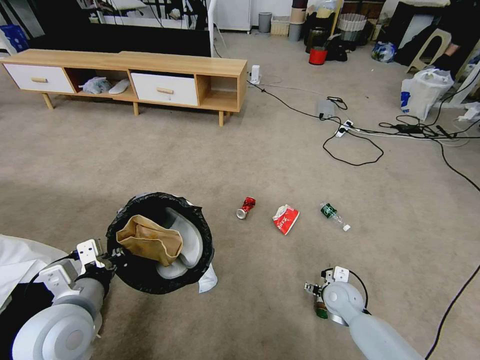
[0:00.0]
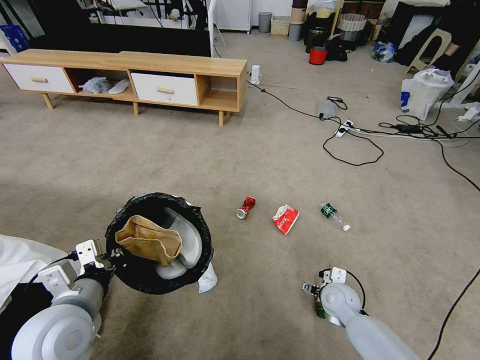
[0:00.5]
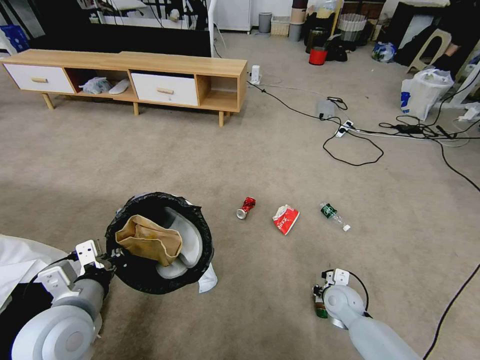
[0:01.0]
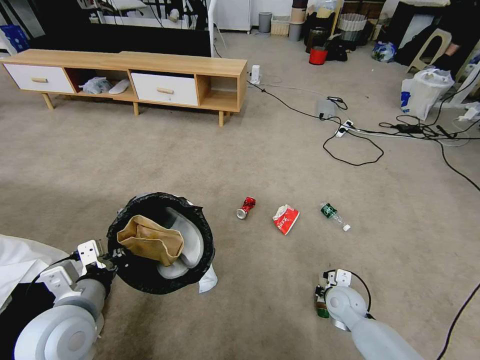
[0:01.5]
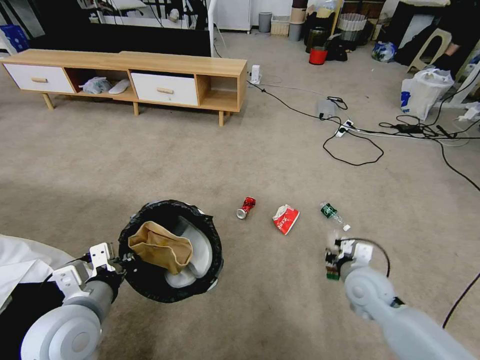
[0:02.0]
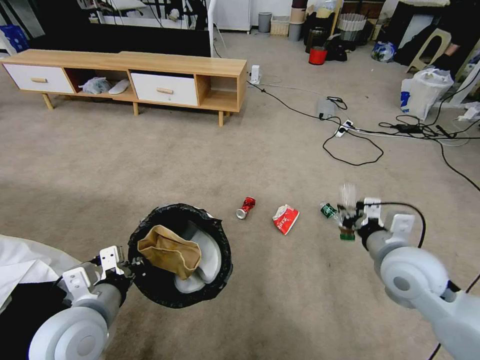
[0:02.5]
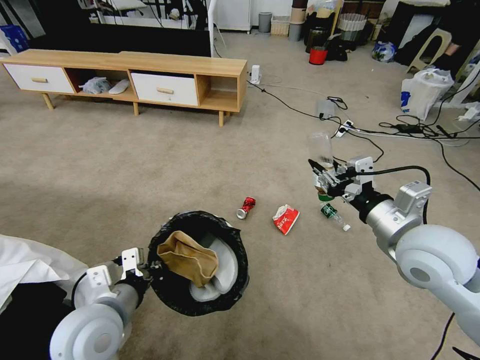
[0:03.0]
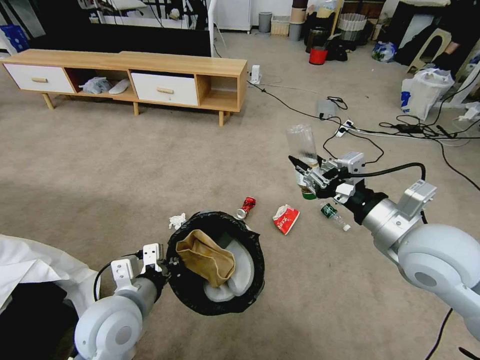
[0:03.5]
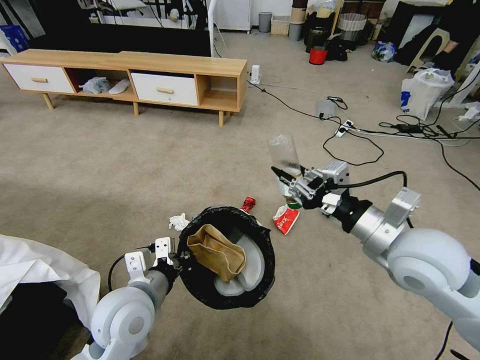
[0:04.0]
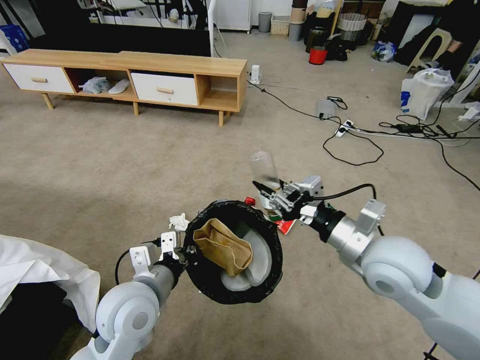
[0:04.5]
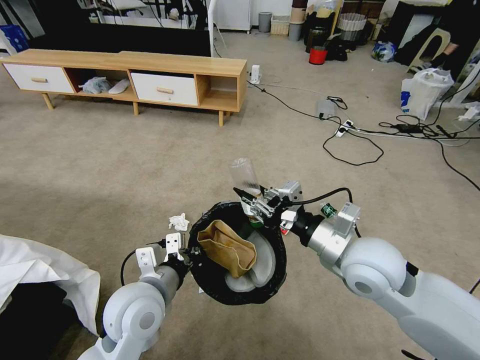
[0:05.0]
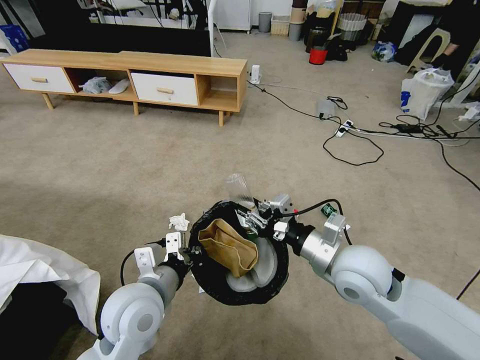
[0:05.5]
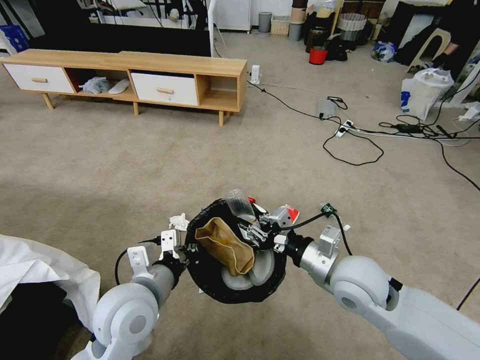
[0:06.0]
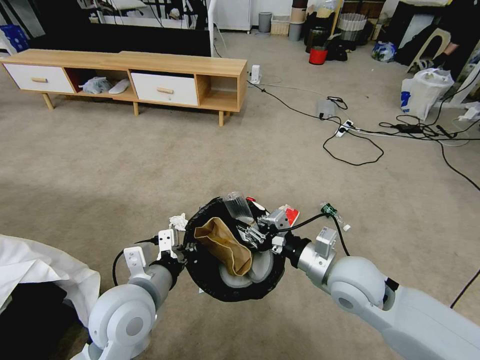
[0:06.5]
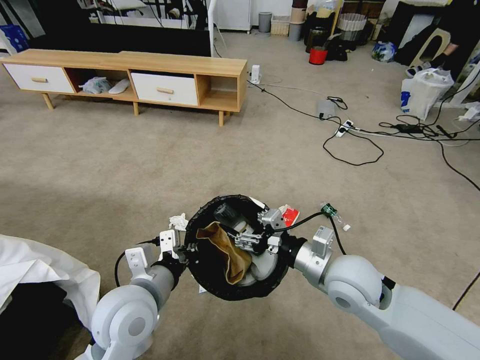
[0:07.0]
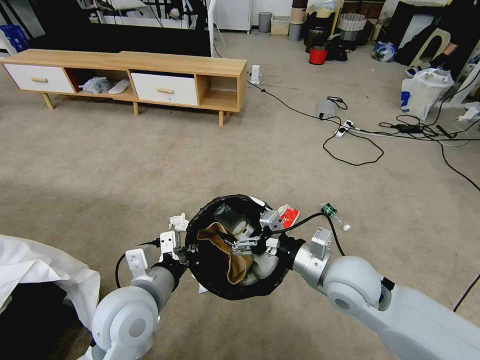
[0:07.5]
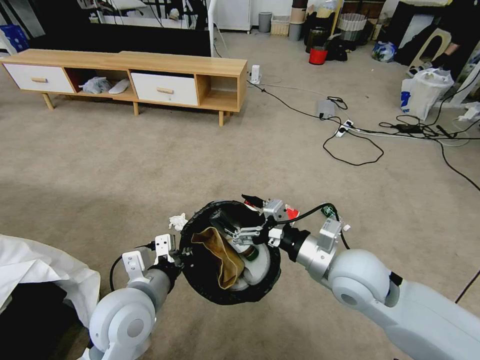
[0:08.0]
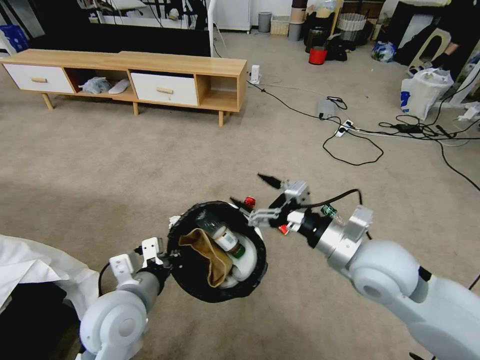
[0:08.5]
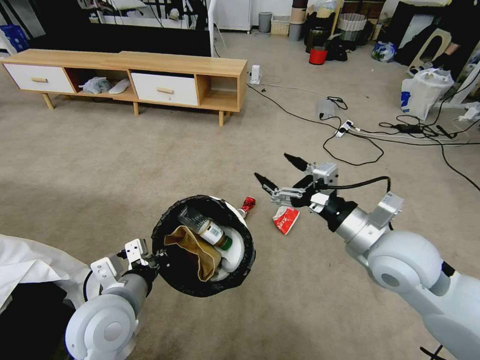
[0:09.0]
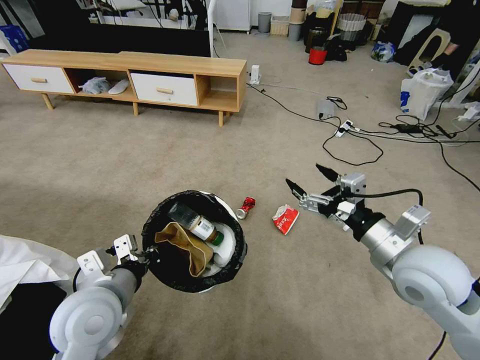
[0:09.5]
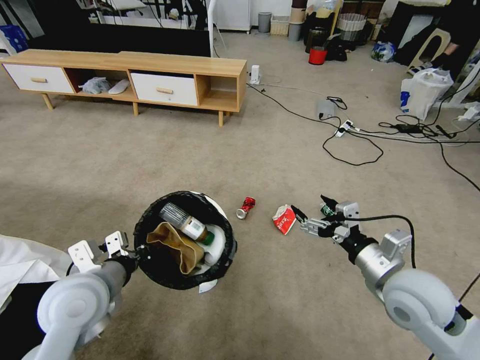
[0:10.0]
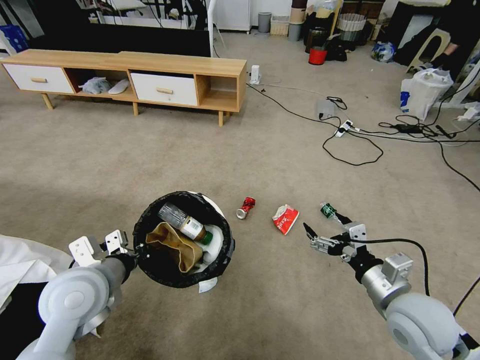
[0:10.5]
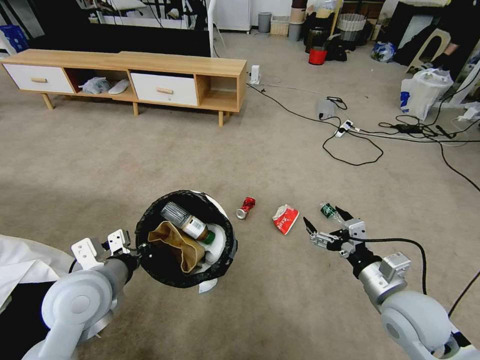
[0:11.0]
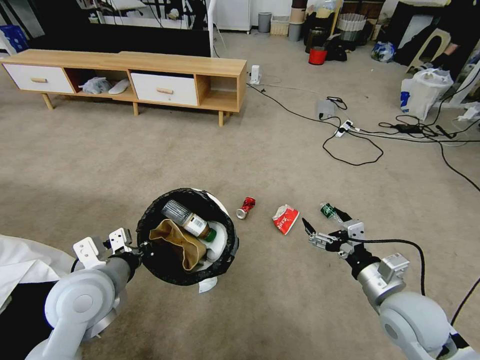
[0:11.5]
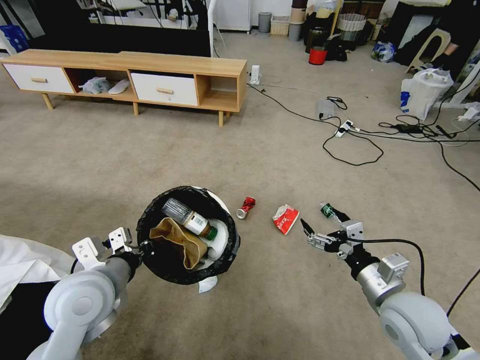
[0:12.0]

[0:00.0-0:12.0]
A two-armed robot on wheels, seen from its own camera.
Task of the whole recording: Pick up the trash bin and place the garbage on the floor into it.
0:00.0 to 0:02.0: The right gripper shifts some 10 cm upward, and closes its fingers.
0:02.0 to 0:04.0: The left gripper heads to the right, covering roughly 10 cm. The right gripper moves upward, some 20 cm.
0:04.0 to 0:06.0: The right gripper heads downward and to the left, covering approximately 10 cm.
0:06.0 to 0:08.0: The right gripper opens its fingers.
0:08.0 to 0:10.0: The left gripper heads to the left, covering approximately 5 cm; the right gripper goes about 10 cm to the right.
0:10.0 to 0:12.0: The right gripper changes place by some 5 cm.

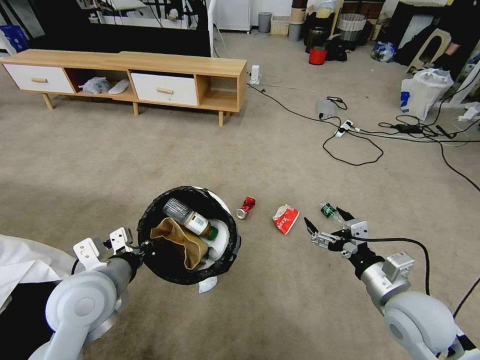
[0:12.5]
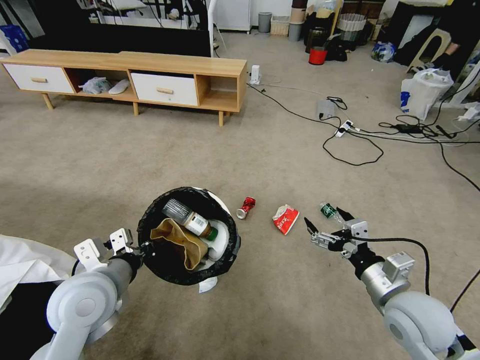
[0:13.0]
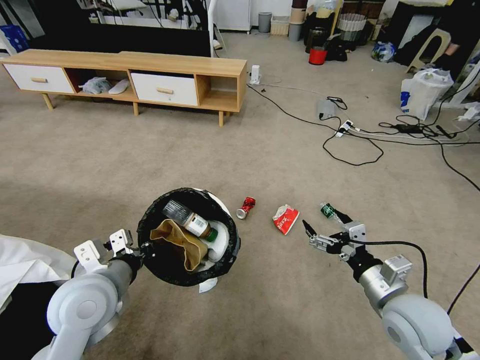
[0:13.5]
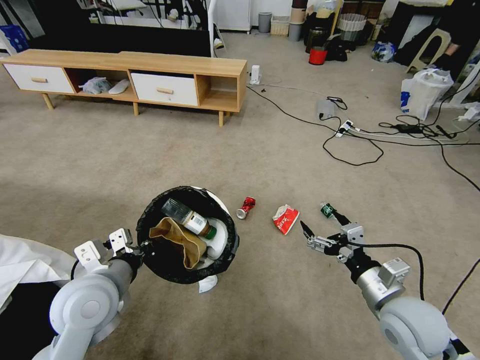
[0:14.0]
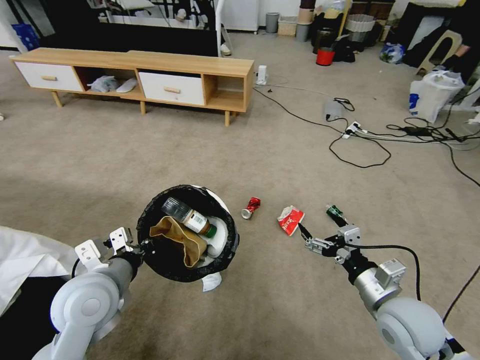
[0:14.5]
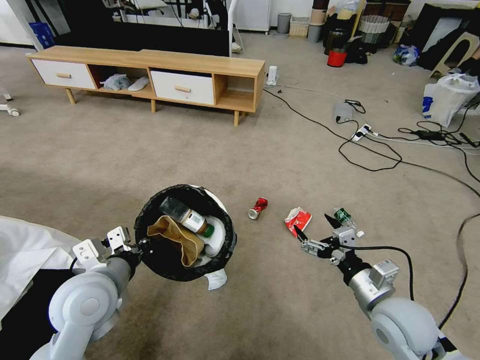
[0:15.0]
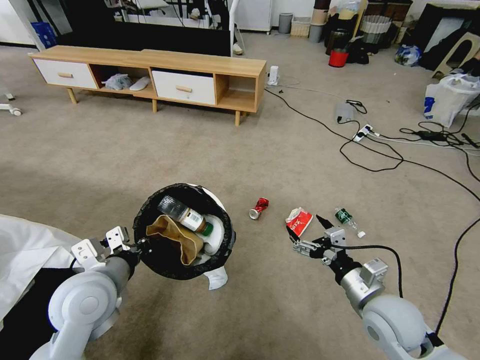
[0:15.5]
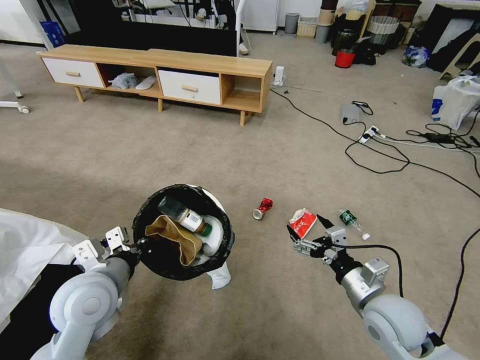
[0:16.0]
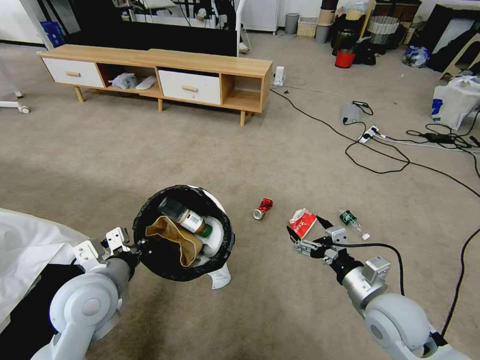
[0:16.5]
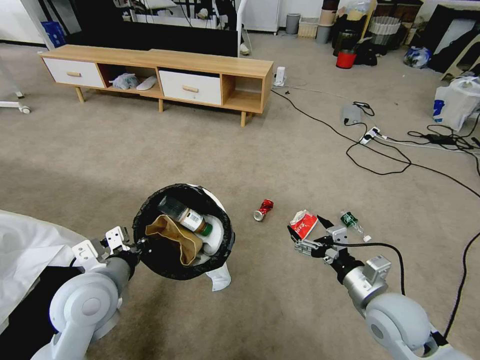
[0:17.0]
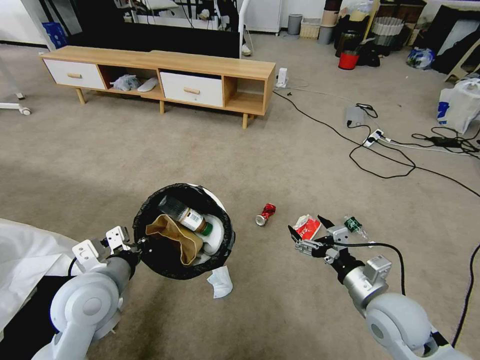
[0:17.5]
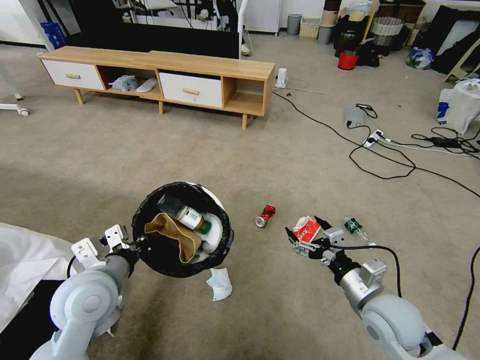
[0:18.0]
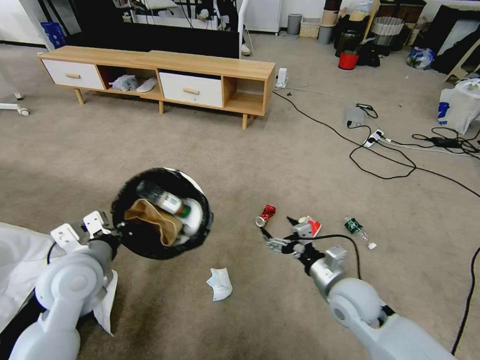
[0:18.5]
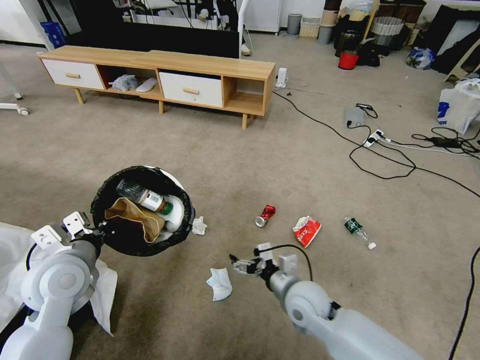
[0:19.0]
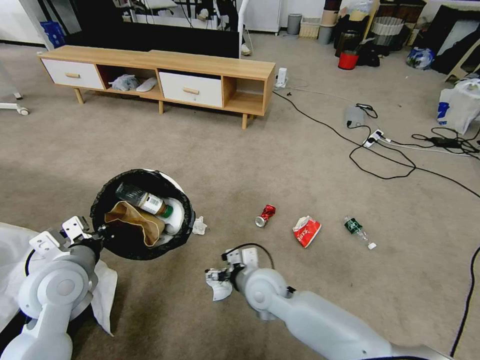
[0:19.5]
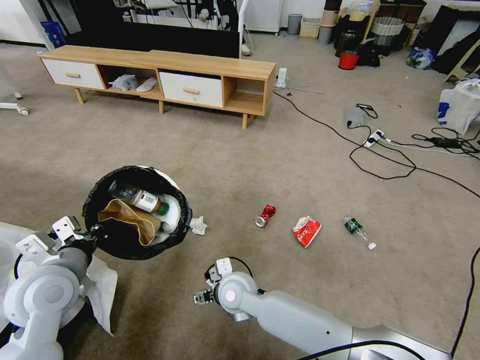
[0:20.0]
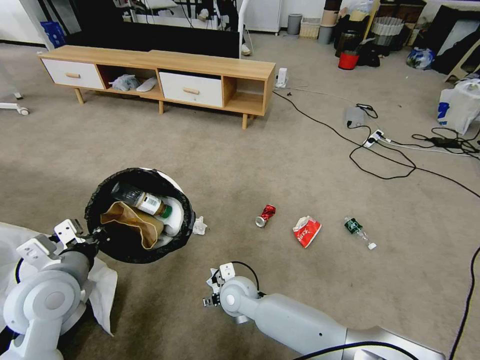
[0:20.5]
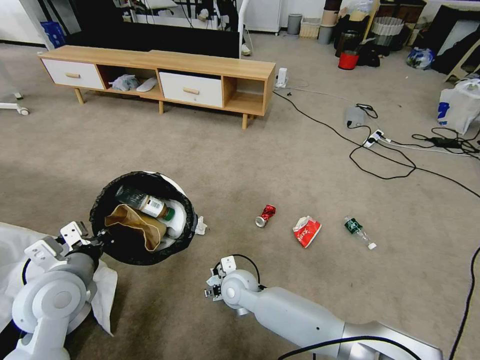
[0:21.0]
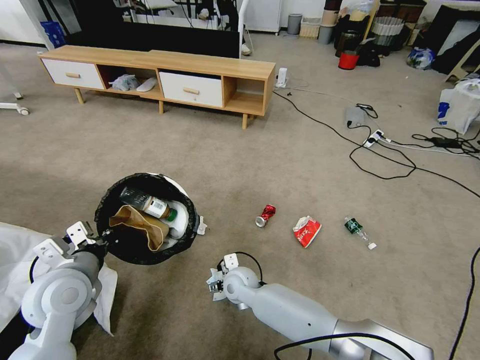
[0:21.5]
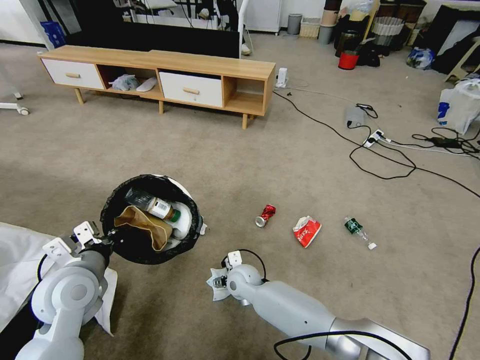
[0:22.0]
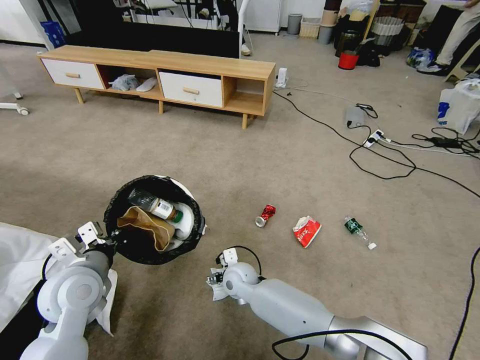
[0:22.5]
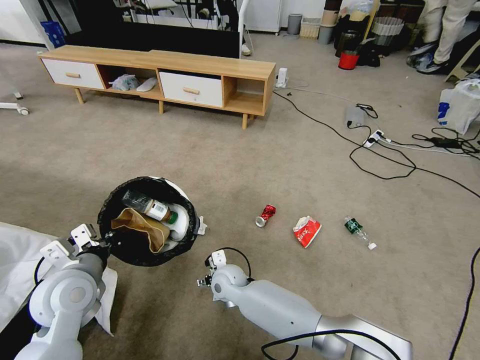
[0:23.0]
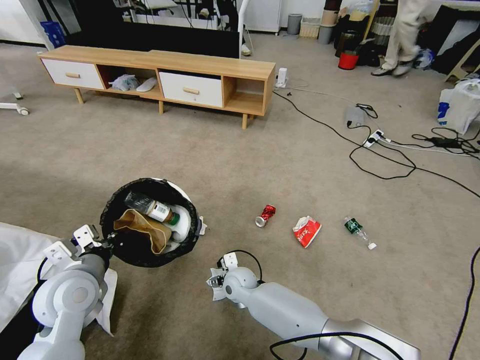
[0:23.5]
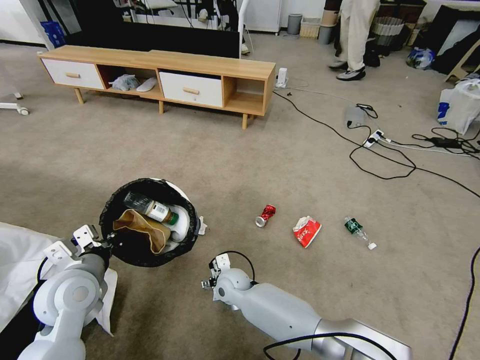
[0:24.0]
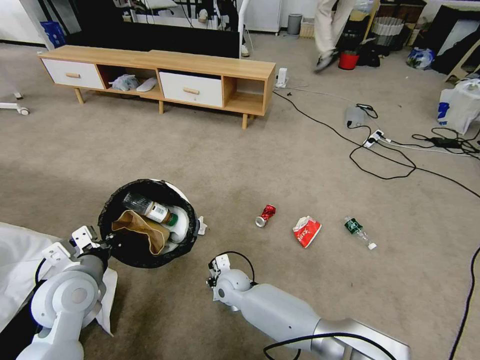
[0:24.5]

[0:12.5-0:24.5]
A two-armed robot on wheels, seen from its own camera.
Task of the whole recording: Pick up the trash bin and place the garbage on the floor into it.
0:16.5 to 0:18.5: The right gripper ends up about 10 cm from where it was, while the left gripper ends up about 5 cm from where it was.
0:18.5 to 0:20.5: The right gripper shifts approximately 25 cm to the left.
0:20.5 to 0:22.5: The right gripper moves forward, roughly 5 cm.
0:22.5 to 0:24.5: The right gripper closes its fingers.

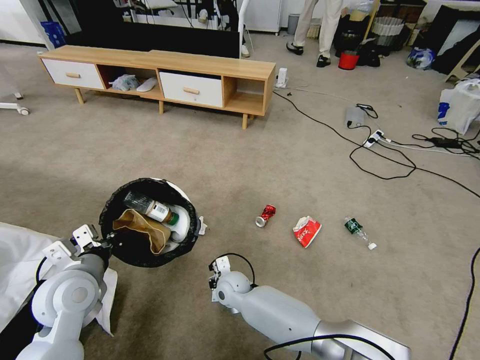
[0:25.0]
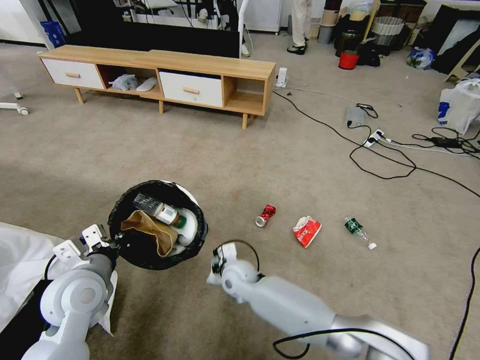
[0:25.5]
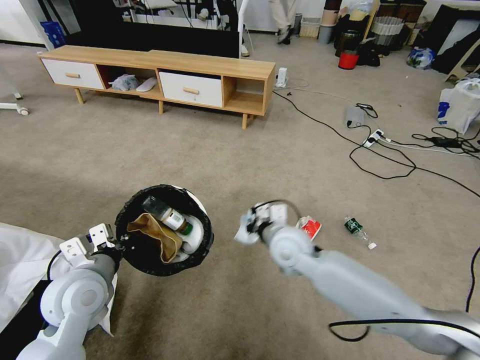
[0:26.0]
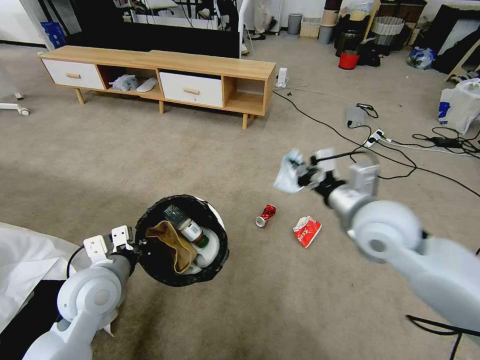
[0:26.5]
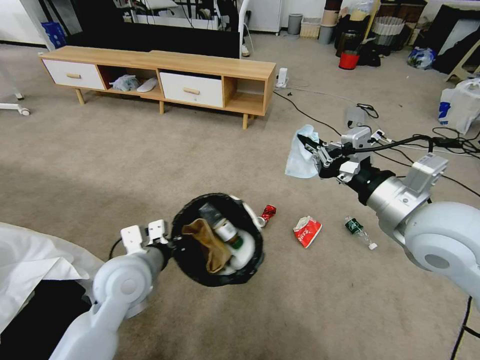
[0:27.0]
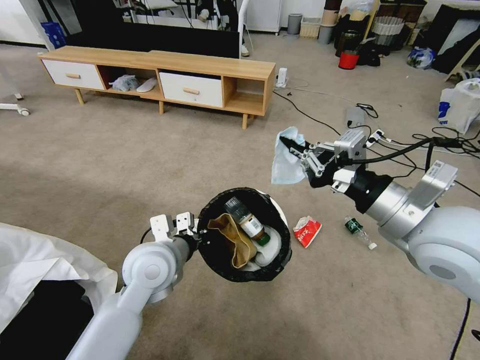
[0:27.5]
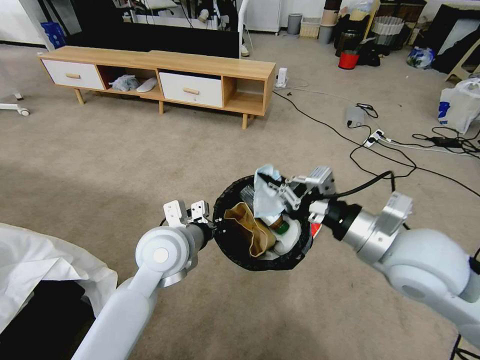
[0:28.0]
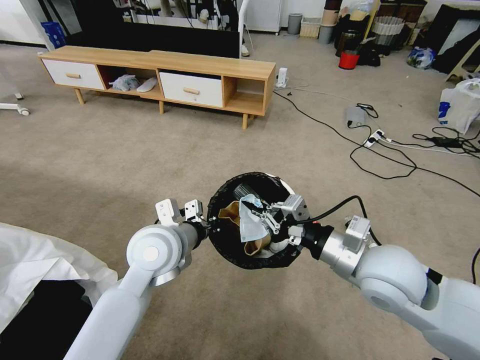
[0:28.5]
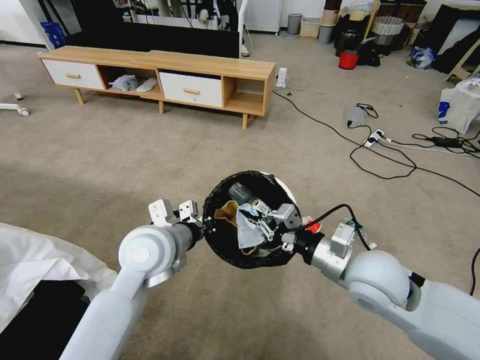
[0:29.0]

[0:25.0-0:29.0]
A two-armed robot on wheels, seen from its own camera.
Task of the whole recording: Pick up the trash bin and place the garbage on the floor into it.
0:25.0 to 0:27.0: The right gripper travels upward and to the right by approximately 50 cm. The left gripper is displaced to the right by approximately 10 cm.
0:27.0 to 0:29.0: The right gripper moves downward and to the left, roughly 15 cm; the left gripper goes some 5 cm to the right.
